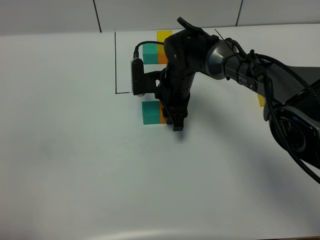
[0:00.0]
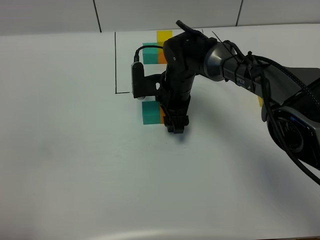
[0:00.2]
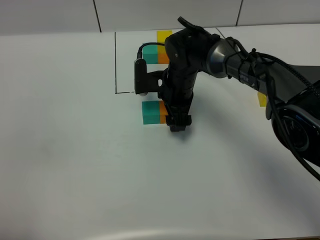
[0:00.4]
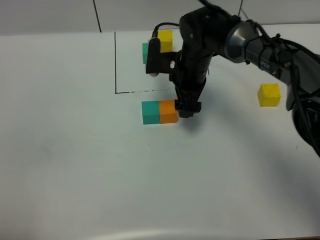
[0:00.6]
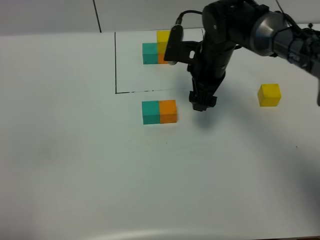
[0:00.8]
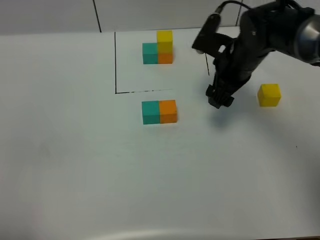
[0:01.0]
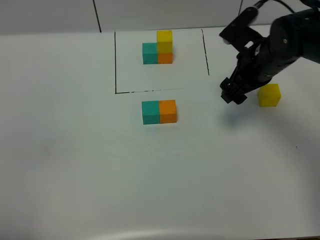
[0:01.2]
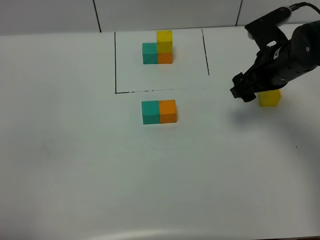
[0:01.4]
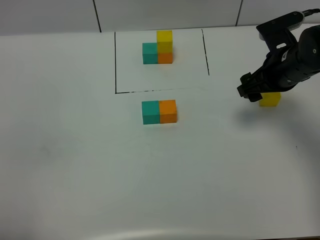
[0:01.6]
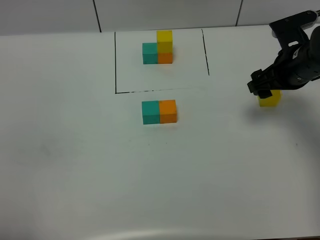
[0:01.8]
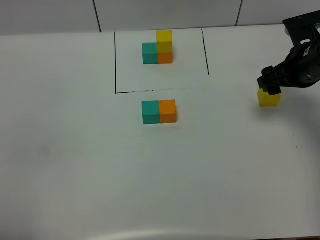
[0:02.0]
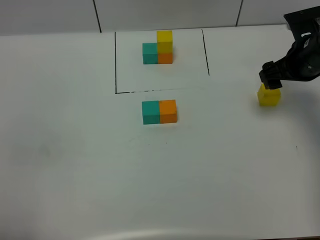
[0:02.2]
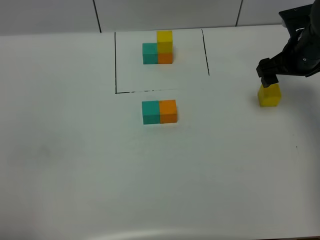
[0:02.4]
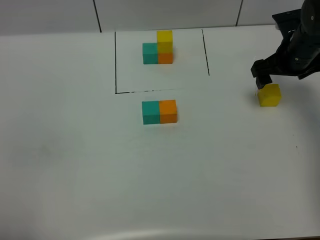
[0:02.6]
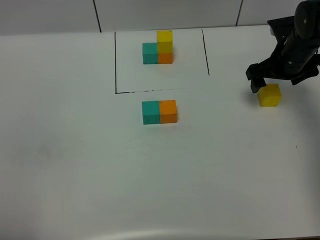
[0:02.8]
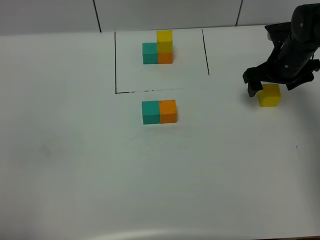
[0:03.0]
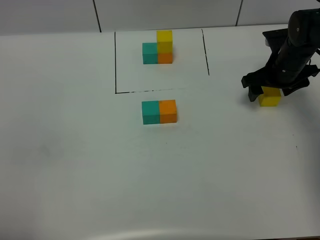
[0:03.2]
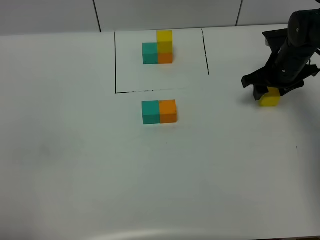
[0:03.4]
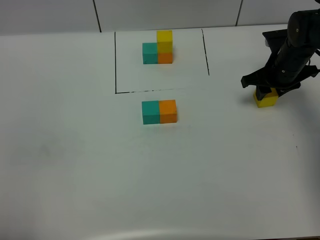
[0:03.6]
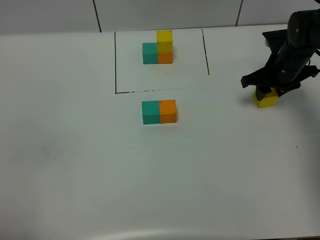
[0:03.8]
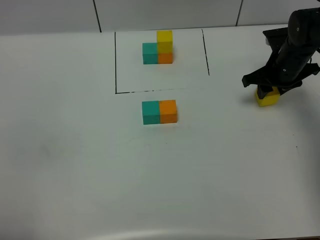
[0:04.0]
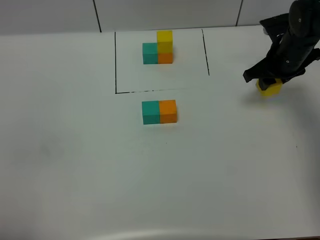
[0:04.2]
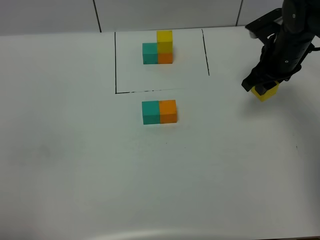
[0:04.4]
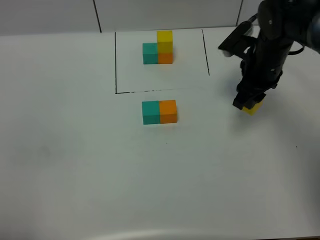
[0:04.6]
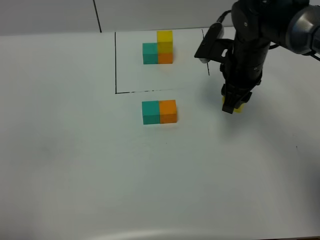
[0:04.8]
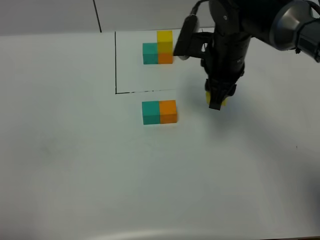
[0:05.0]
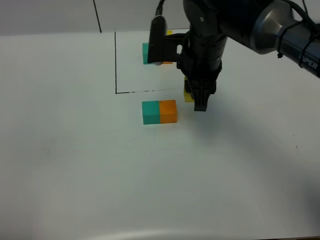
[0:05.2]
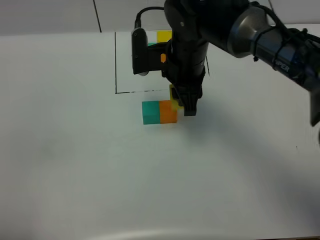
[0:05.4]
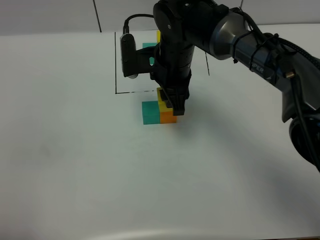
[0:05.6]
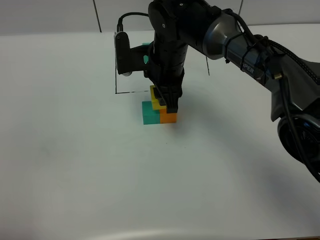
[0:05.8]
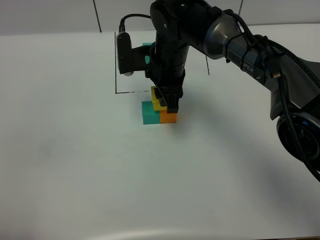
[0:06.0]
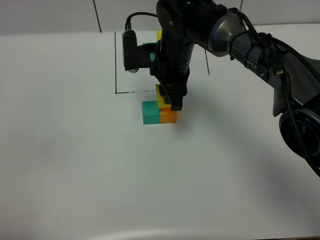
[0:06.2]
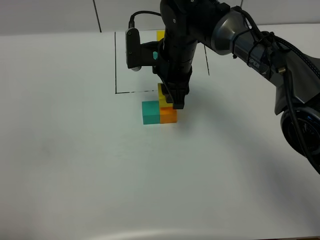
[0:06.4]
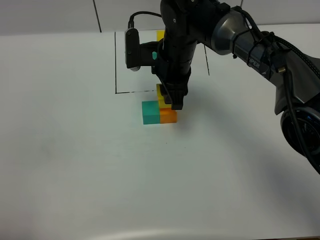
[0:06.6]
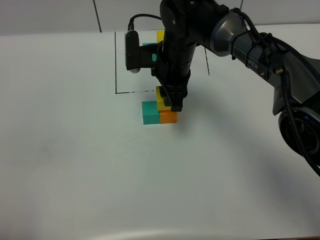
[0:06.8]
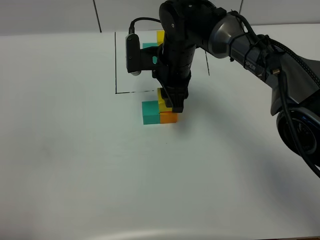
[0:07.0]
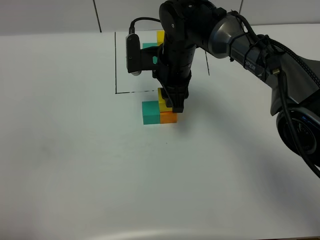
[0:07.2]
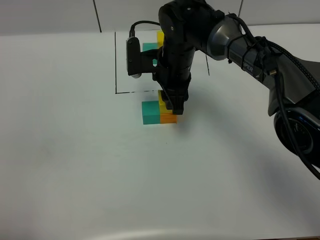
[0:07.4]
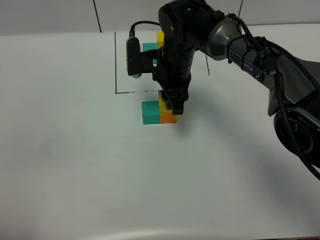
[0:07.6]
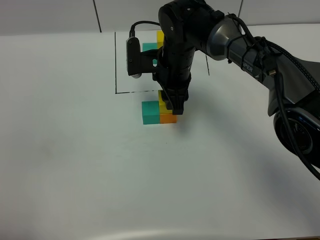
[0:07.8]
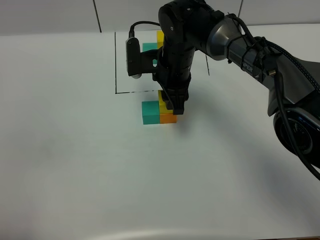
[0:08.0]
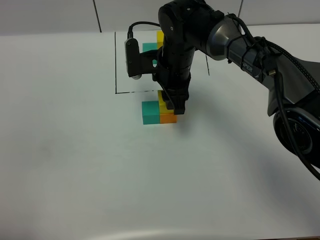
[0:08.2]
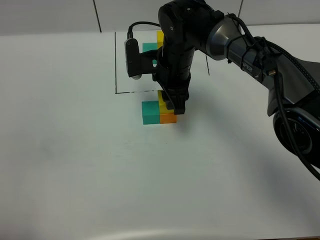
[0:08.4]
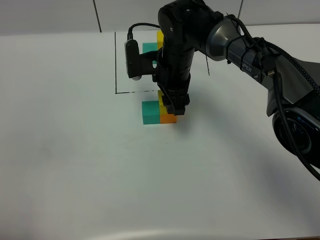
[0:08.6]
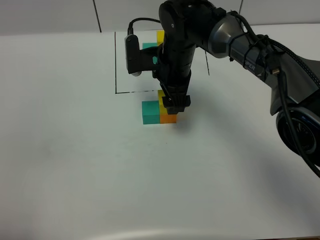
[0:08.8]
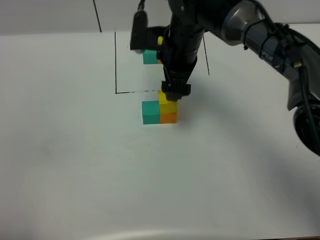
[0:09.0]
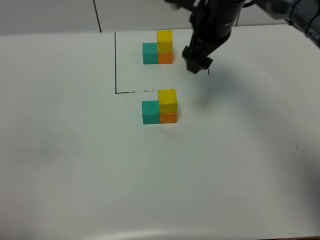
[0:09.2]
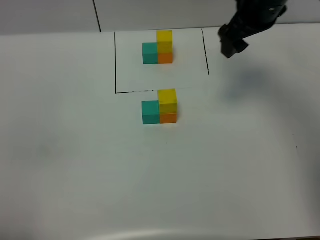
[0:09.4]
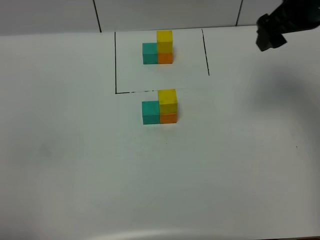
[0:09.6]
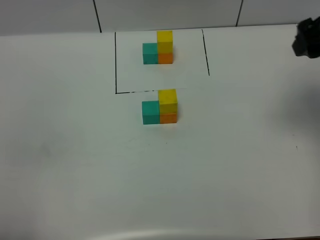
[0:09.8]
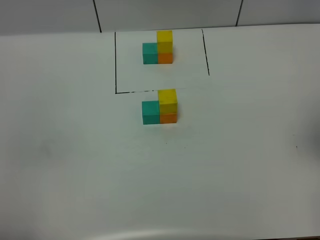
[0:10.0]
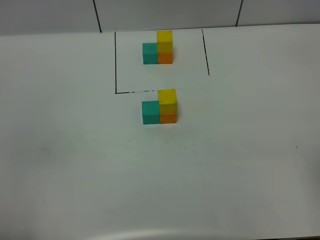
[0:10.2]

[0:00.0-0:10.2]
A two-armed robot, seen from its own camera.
Task of the whole recording: According to the building block template in front, assemble the scattered blocks together.
Step, 0:01.0 to 0:09.2: Put the yellow cube on the orange cube.
0:00.0 to 0:01.4: The right gripper heads to the right and upward, covering roughly 20 cm, and opens up.
0:01.4 to 0:03.0: The right gripper shifts some 10 cm forward and downward.
0:03.0 to 0:04.4: The right gripper shifts by some 5 cm, and closes.
0:04.4 to 0:05.8: The right gripper travels to the left by some 20 cm.
0:05.8 to 0:07.2: The grippers move only a little.
0:07.2 to 0:08.8: The right gripper opens its fingers.
0:08.8 to 0:10.2: The right gripper shifts approximately 40 cm to the right, backward and upward.

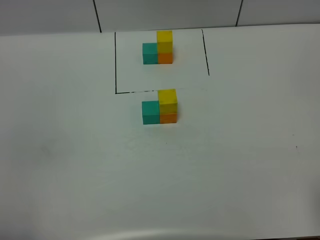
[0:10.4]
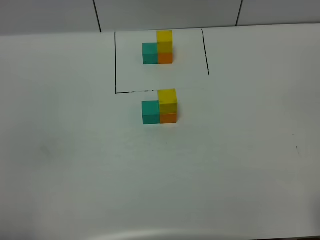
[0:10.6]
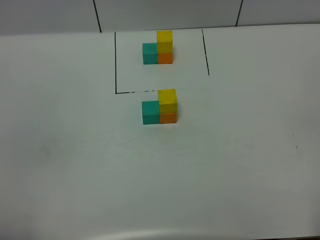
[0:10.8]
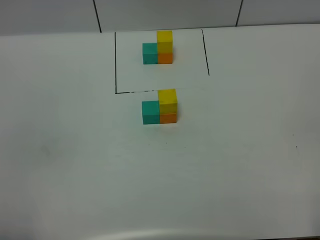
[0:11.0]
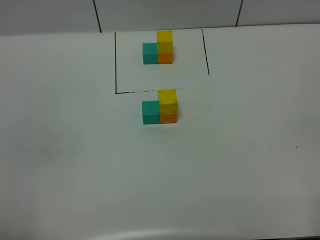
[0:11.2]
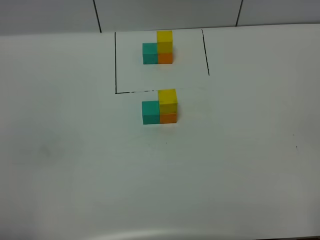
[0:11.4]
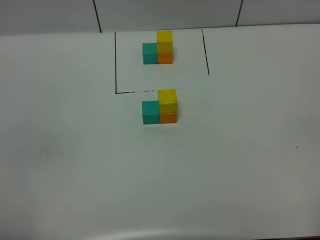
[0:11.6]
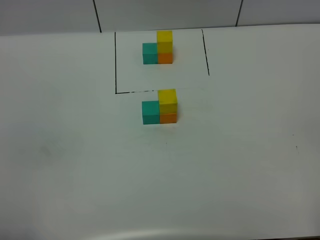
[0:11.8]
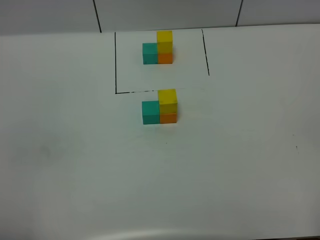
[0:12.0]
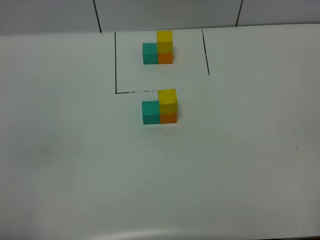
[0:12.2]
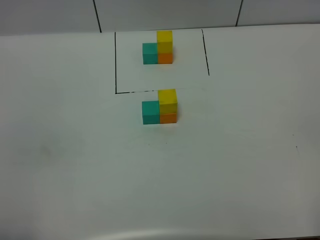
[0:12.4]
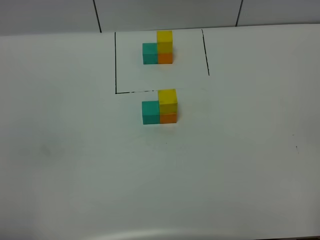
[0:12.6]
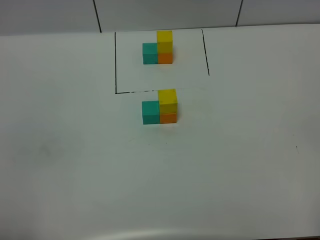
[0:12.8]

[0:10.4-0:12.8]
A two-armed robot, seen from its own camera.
Task of the whole recording: According to the building block template in front, assemble the scattered blocks together.
0:11.6 to 0:12.8: The two grippers keep their place.

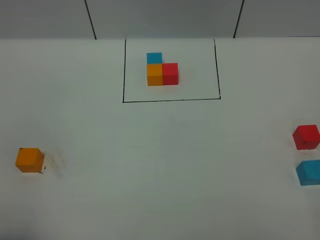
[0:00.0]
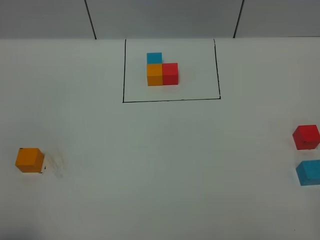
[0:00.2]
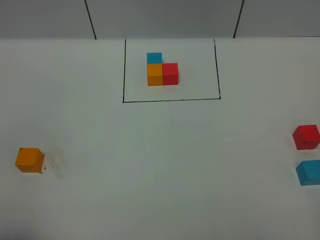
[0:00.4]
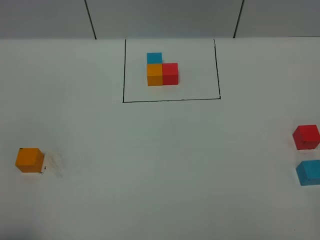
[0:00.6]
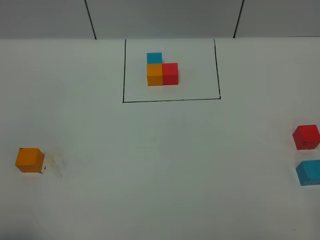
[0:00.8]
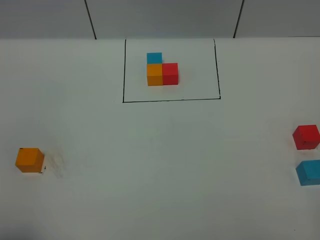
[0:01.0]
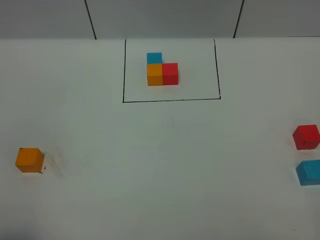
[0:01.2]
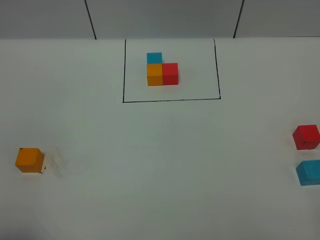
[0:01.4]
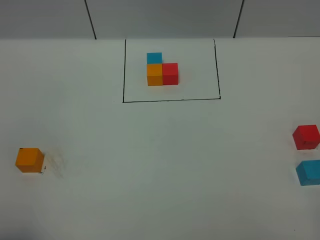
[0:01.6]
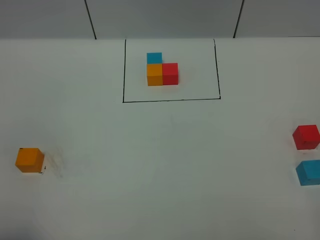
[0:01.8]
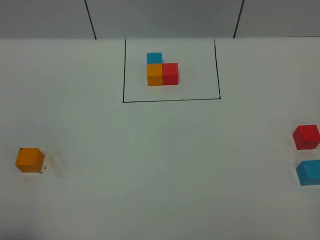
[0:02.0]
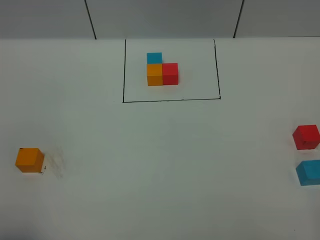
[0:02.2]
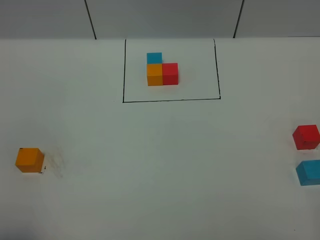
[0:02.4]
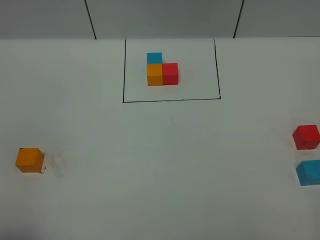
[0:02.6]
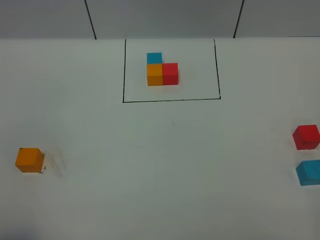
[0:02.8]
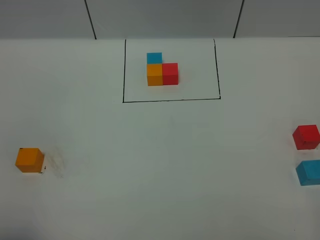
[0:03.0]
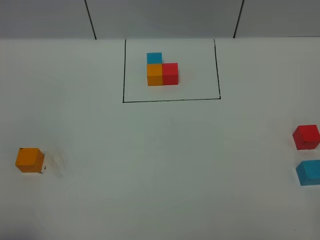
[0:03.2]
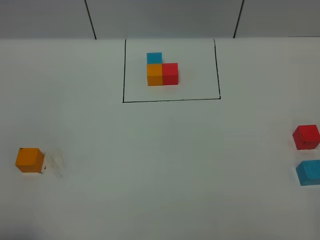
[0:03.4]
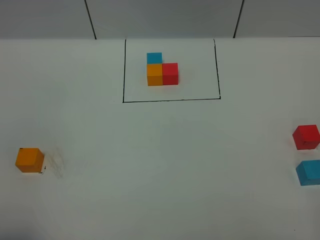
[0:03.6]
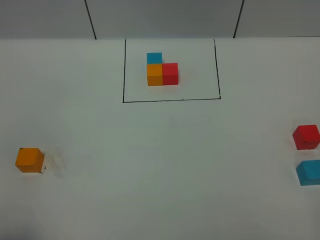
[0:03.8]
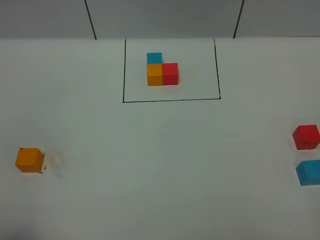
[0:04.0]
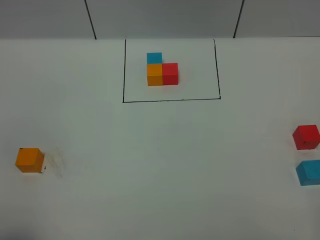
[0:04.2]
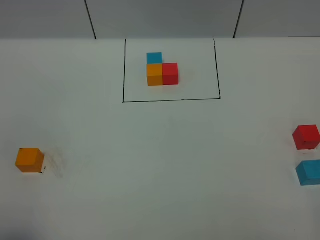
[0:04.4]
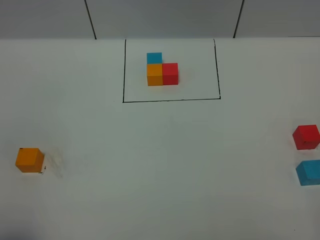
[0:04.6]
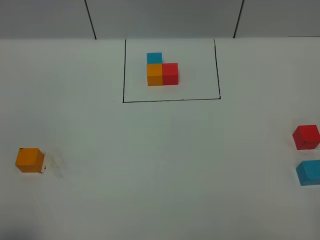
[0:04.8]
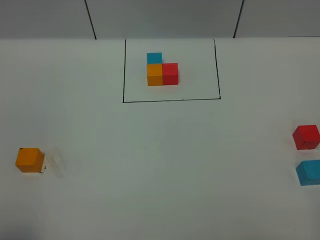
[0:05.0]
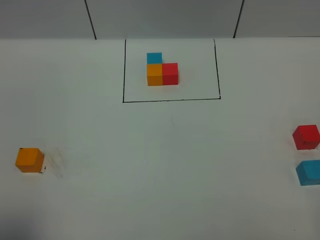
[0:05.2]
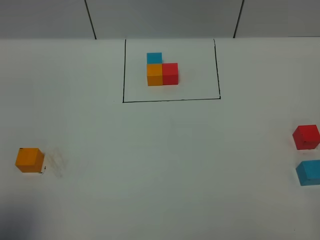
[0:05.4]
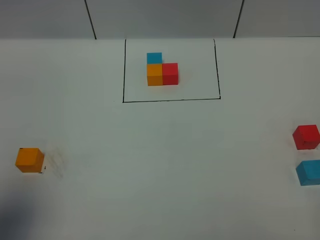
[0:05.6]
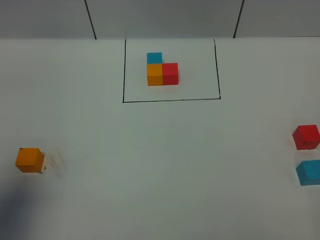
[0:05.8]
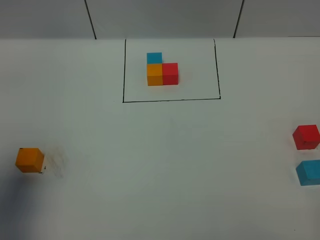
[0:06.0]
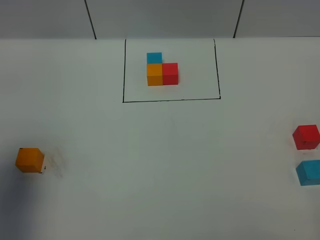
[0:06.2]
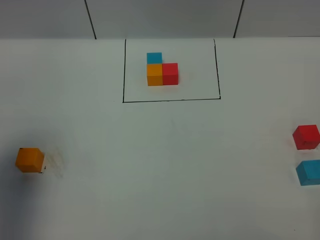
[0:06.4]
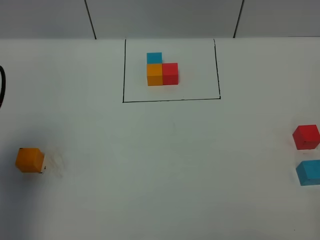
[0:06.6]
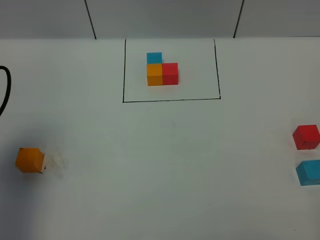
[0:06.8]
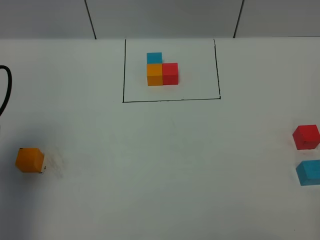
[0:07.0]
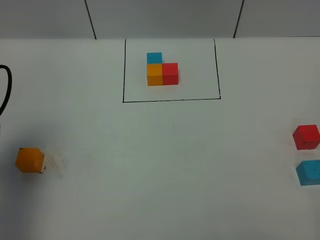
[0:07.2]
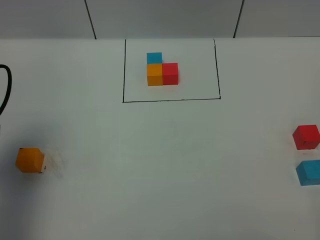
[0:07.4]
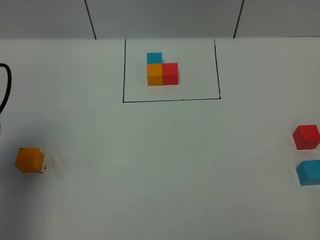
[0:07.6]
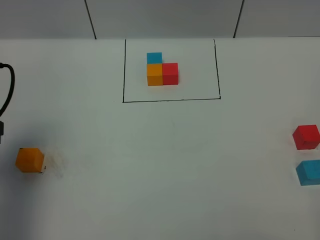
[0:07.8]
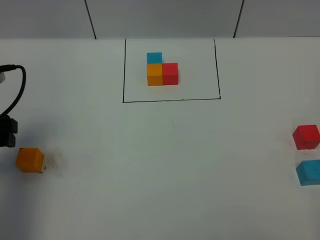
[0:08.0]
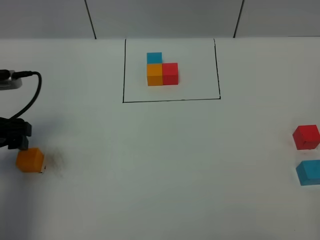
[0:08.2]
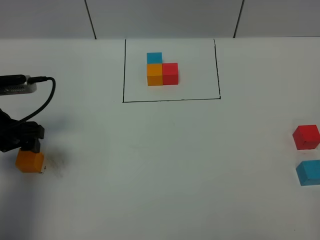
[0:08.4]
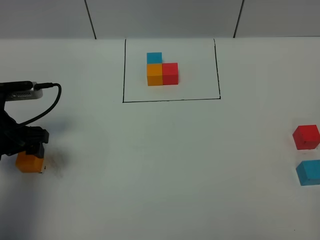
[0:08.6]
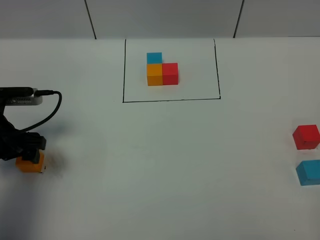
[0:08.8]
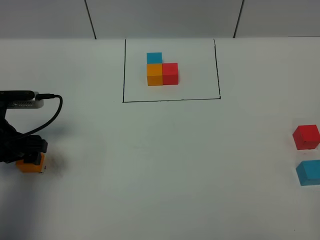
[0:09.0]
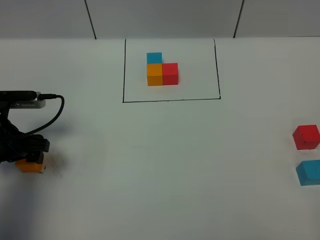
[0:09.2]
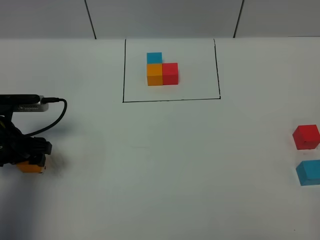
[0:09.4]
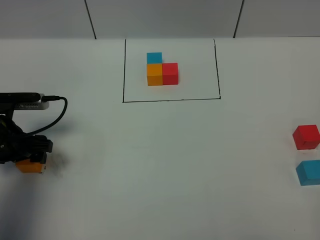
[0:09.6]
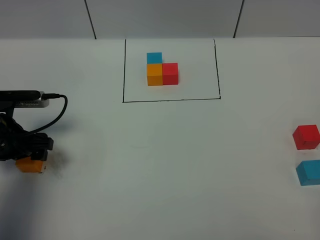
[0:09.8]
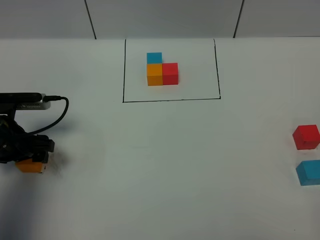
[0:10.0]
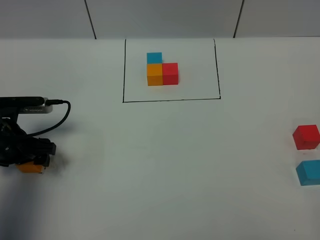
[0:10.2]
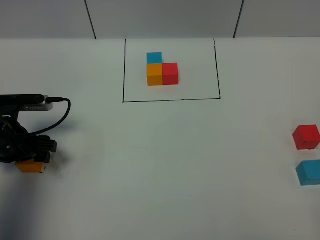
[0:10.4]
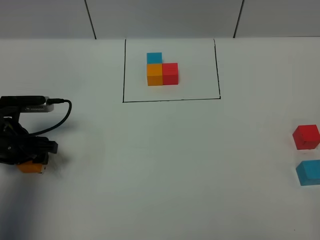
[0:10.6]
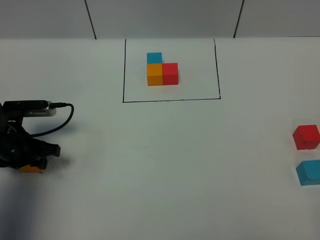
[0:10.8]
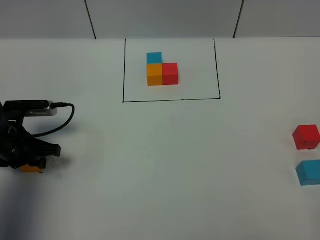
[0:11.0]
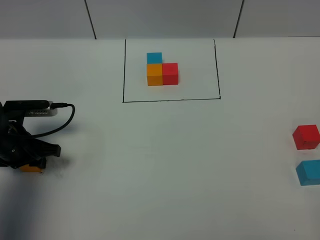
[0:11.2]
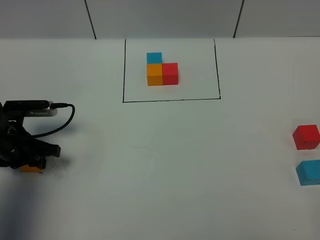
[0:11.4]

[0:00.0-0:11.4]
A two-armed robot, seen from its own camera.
Task of the whole recording: According to the building block template in front, assemble the scattered blocks together.
0:00.0 to 0:02.8: Both grippers stay put.
0:02.8 to 0:04.2: Both grippers stay about where they are.
0:04.2 to 0:05.6: The left gripper moves upward and forward, approximately 10 cm.
0:05.6 to 0:07.2: The left gripper is displaced forward and downward by some 15 cm.
0:07.2 to 0:08.6: The left gripper heads downward and forward, covering some 10 cm.
0:08.6 to 0:10.0: The grippers make only small movements.
0:10.0 to 0:11.4: The left gripper closes.
